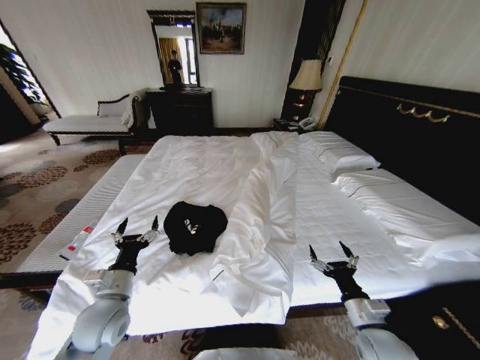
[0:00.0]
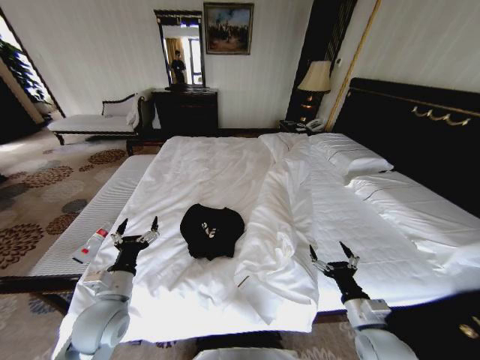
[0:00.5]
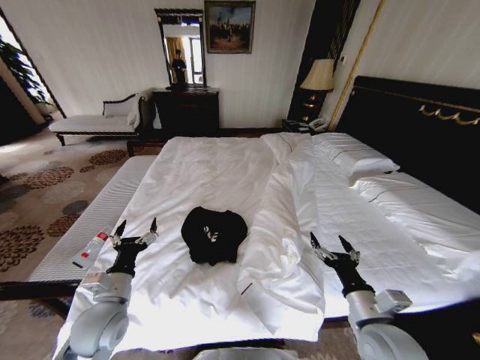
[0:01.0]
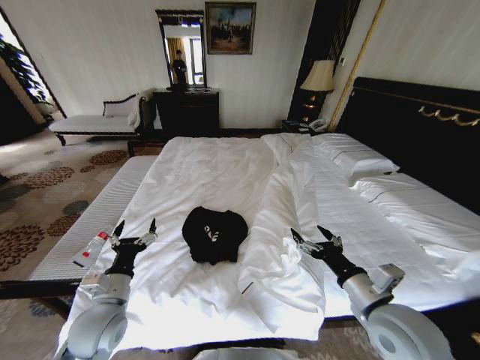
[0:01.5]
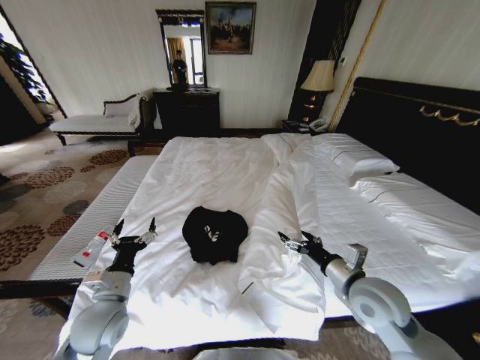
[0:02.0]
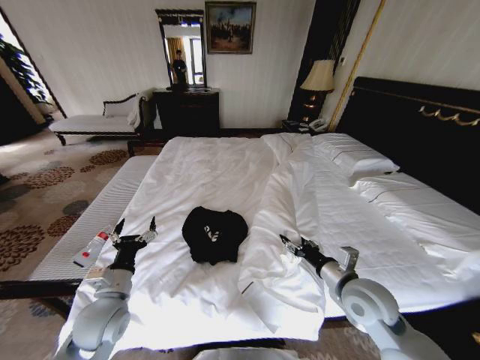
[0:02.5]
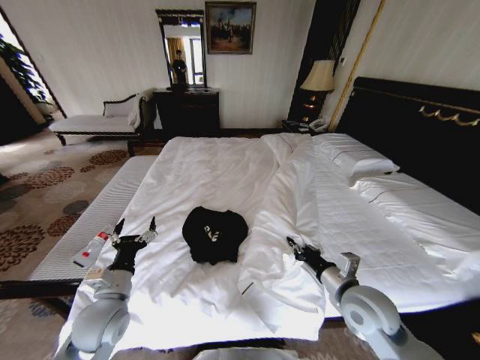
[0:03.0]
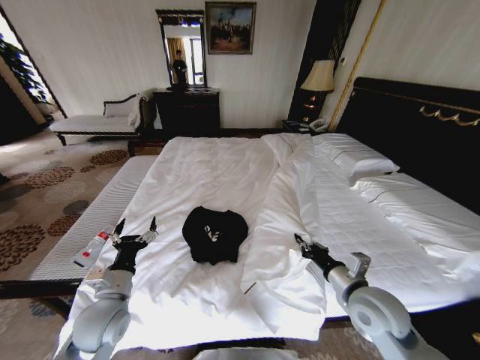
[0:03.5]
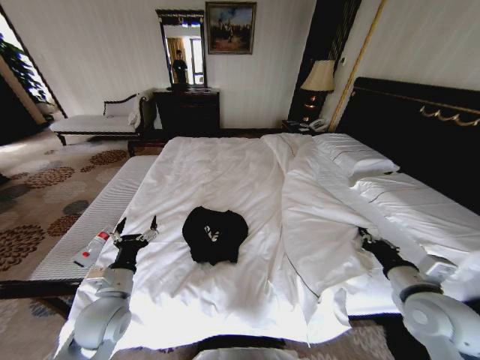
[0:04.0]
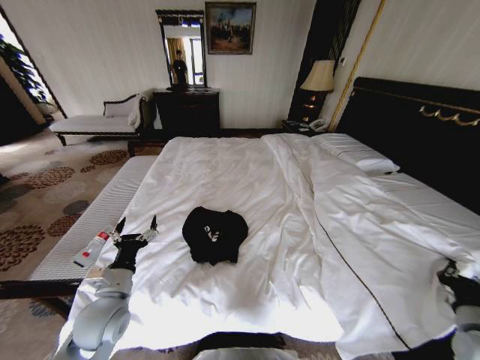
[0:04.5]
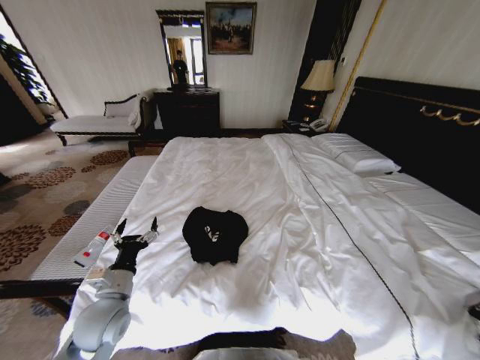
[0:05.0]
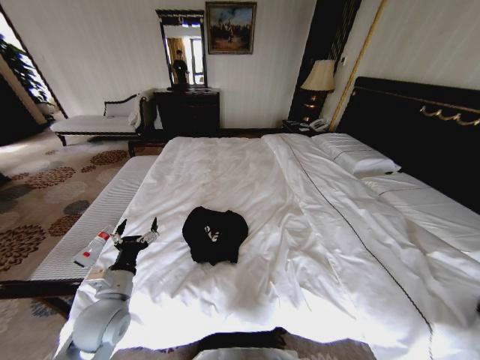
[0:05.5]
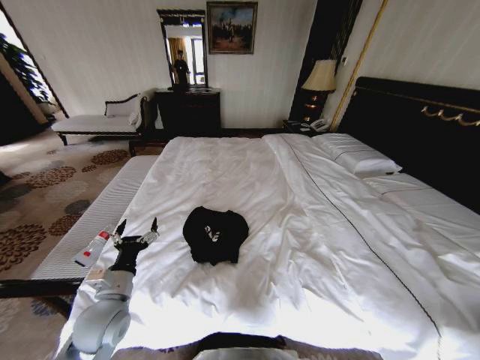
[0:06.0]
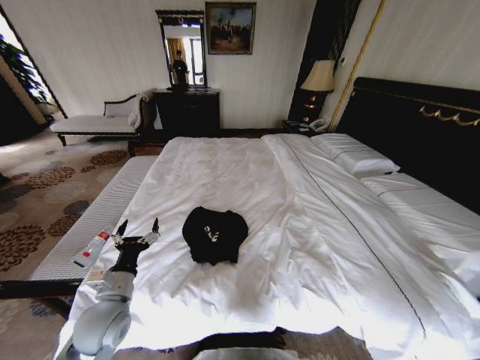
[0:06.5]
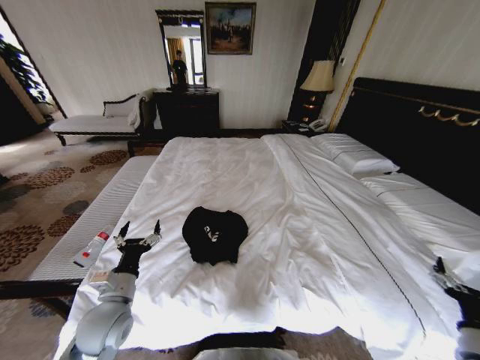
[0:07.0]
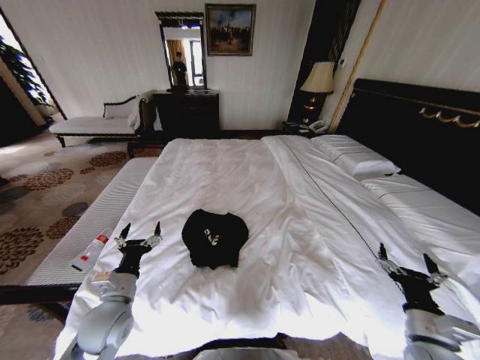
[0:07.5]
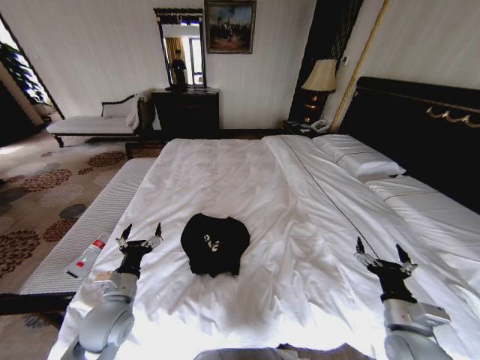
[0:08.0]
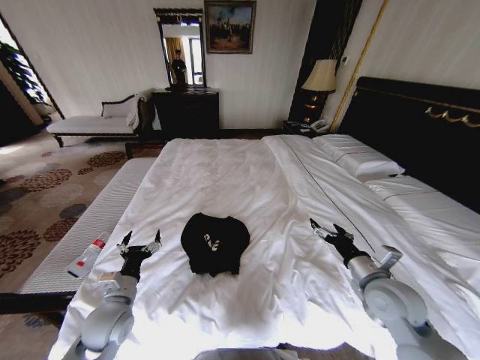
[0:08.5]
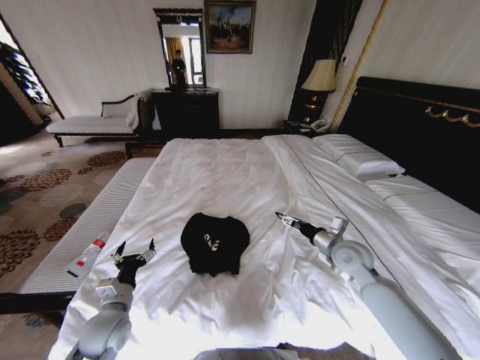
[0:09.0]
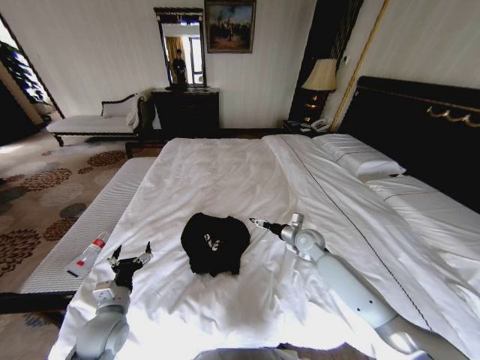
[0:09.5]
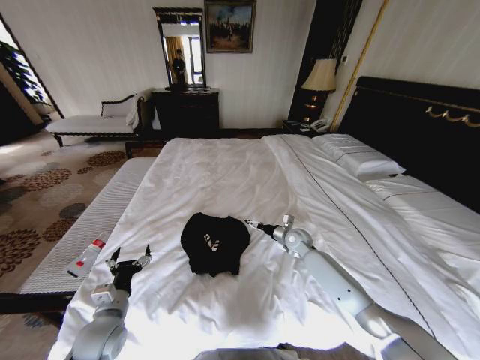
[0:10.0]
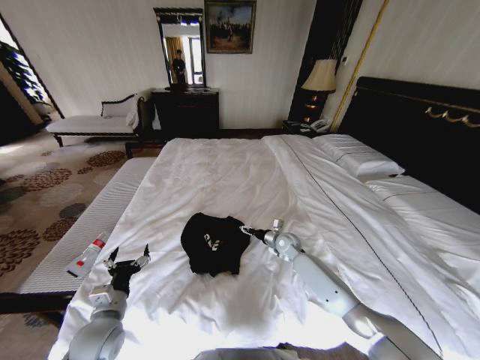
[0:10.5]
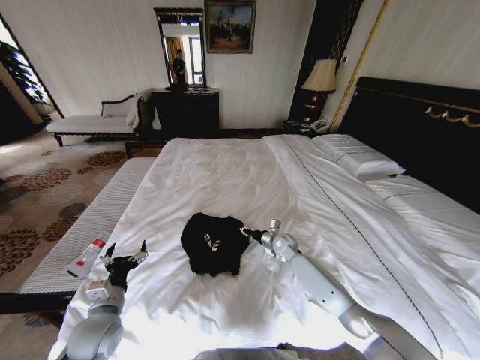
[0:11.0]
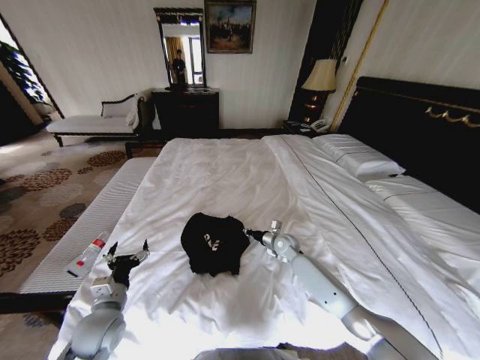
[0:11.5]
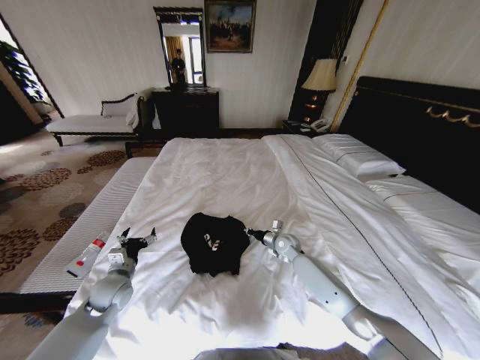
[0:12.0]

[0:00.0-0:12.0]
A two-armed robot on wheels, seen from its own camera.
Task of the whole recording: Fold the clothes on the bed.
0:00.0 to 0:02.0: The right gripper shifts some 15 cm upward and forward.
0:02.0 to 0:04.0: The right gripper goes some 10 cm to the right, and closes up.
0:04.0 to 0:06.0: The right gripper goes about 30 cm to the right and downward.
0:06.0 to 0:08.0: The right gripper moves to the left, roughly 30 cm, and opens.
0:08.0 to 0:10.0: The left gripper ends up some 5 cm from where it was. Meanwhile the right gripper travels forward by roughly 30 cm.
0:10.0 to 0:12.0: The left gripper travels forward by some 10 cm. The right gripper closes its fingers.

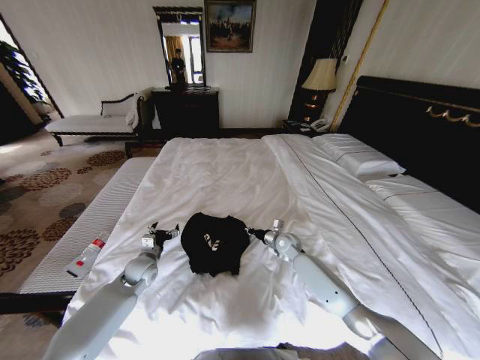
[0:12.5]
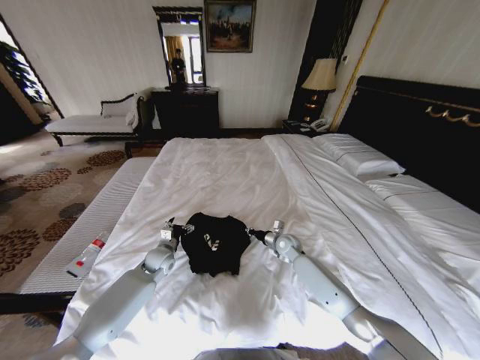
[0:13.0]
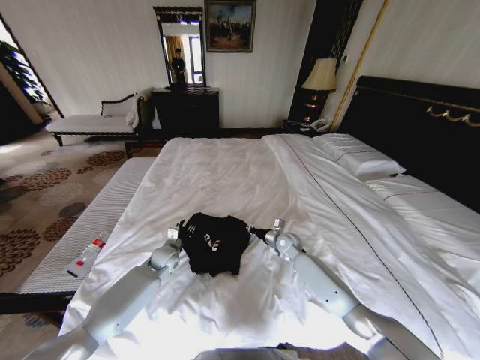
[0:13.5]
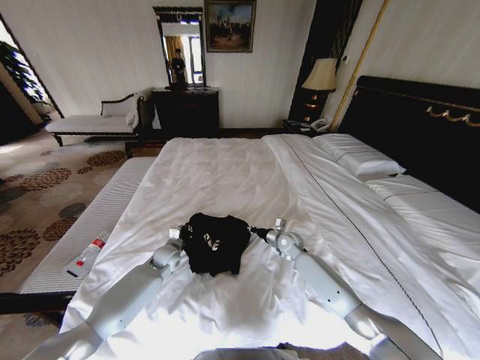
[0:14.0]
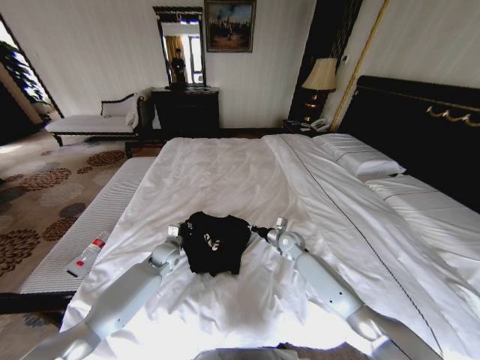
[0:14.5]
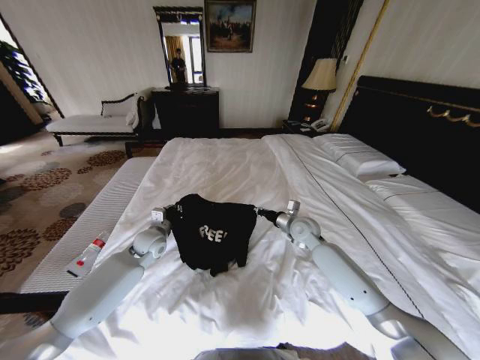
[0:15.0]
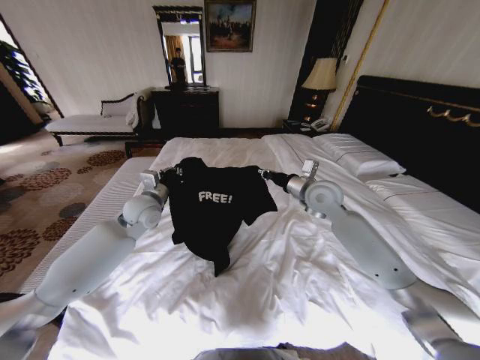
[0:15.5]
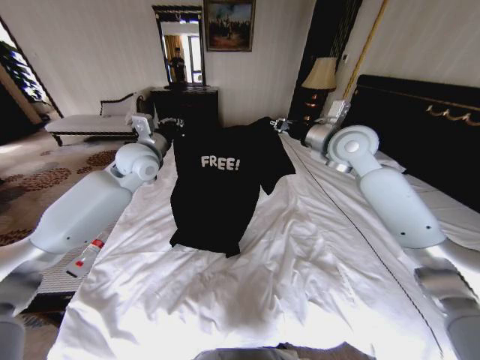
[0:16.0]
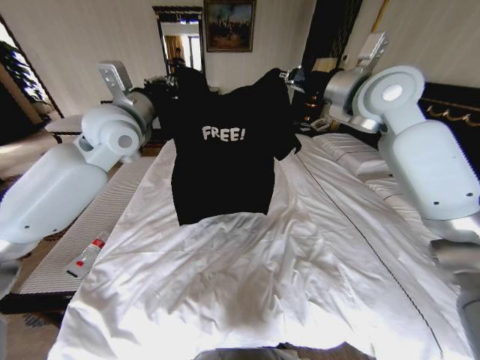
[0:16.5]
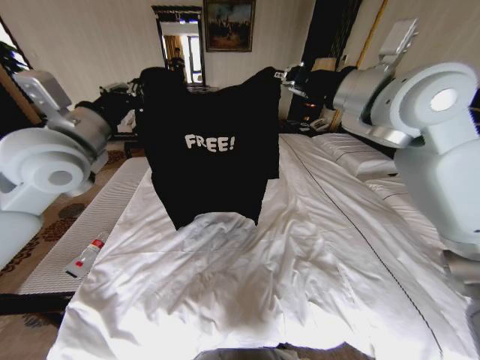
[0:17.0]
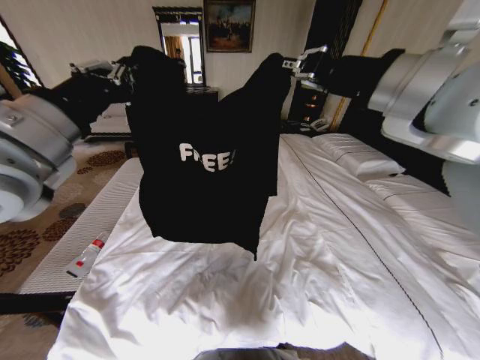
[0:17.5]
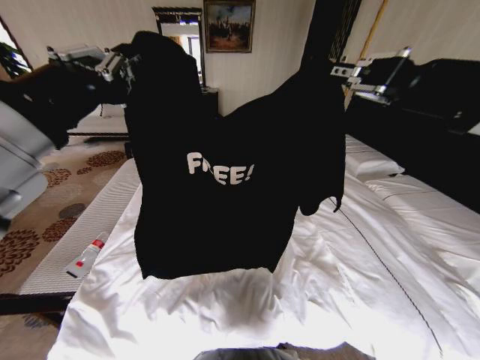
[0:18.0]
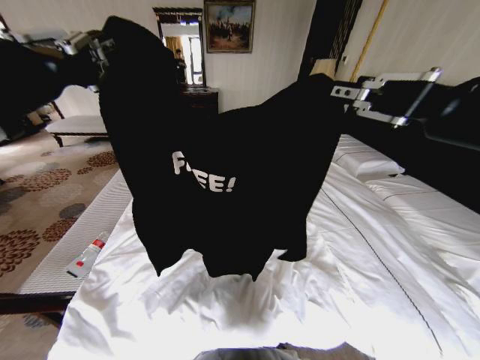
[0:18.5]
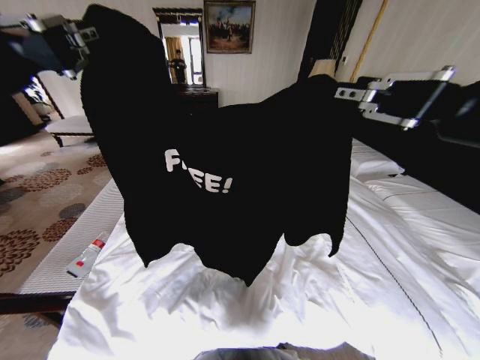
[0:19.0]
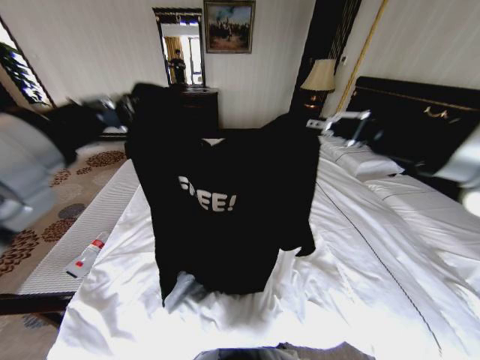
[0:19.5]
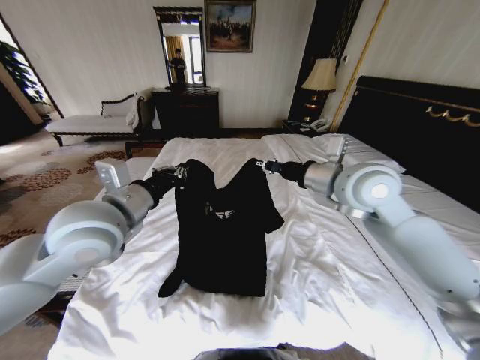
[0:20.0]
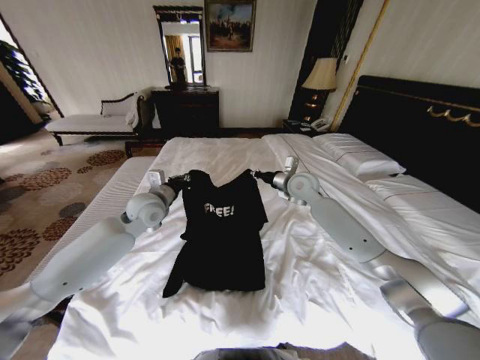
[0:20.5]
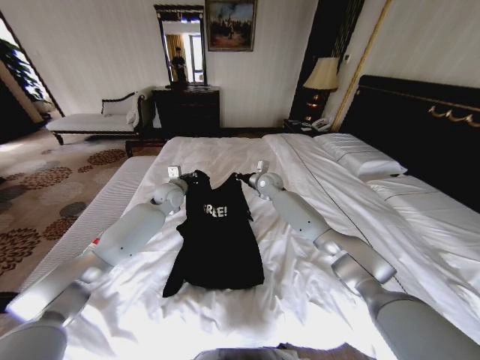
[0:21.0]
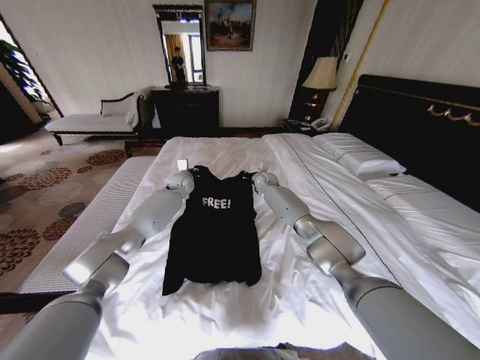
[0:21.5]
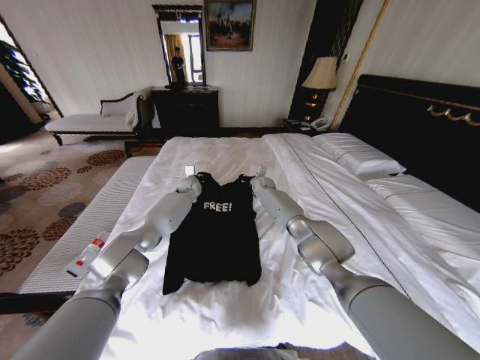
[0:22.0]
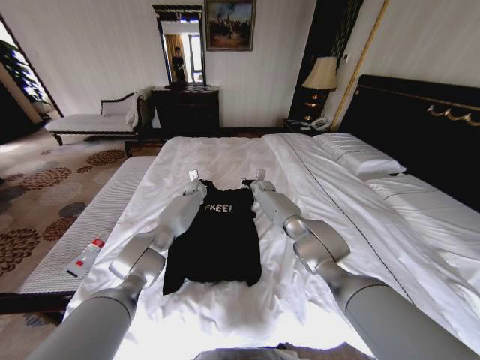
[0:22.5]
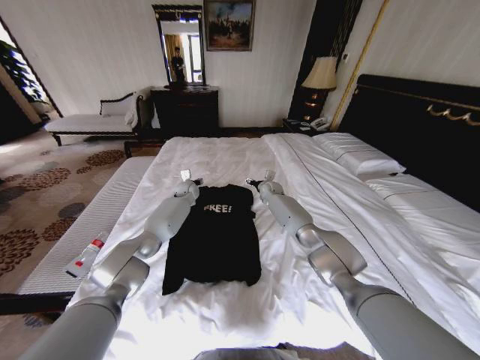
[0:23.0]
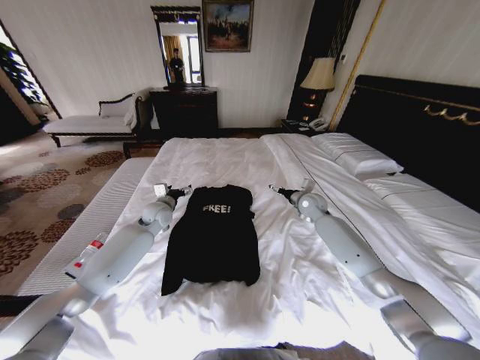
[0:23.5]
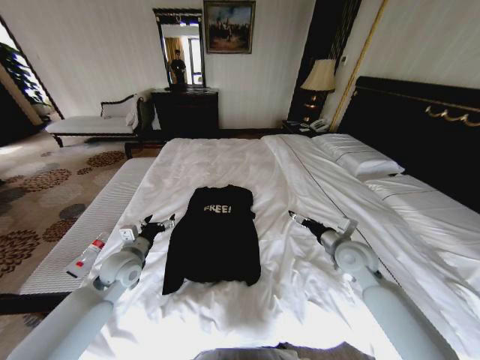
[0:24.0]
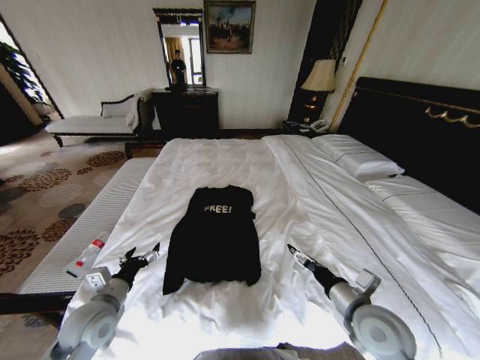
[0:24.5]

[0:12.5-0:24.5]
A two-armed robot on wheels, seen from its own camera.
Task of the whole recording: Fold the clothes on the bed.
0:12.5 to 0:14.5: The left gripper heads to the right and forward, covering about 10 cm, and closes its fingers.
0:14.5 to 0:16.5: The two grippers go approximately 50 cm upward.
0:16.5 to 0:18.5: The grippers both shift backward by approximately 30 cm.
0:18.5 to 0:20.5: The left gripper goes about 35 cm downward and forward. The right gripper moves forward and downward, approximately 50 cm.
0:20.5 to 0:22.5: The left gripper moves forward and downward, about 25 cm. Meanwhile the right gripper is displaced forward, downward and to the left by some 25 cm.
0:22.5 to 0:24.5: Both grippers travel together backward, some 50 cm. The right gripper opens its fingers; the left gripper opens its fingers.

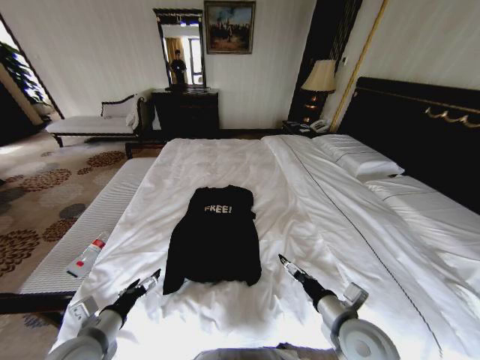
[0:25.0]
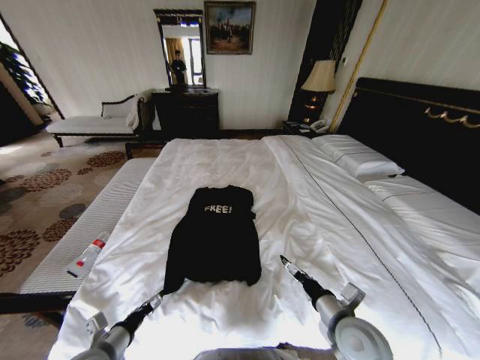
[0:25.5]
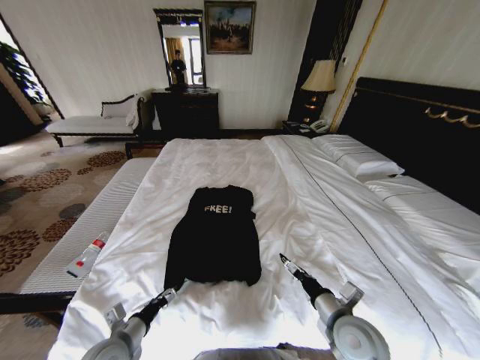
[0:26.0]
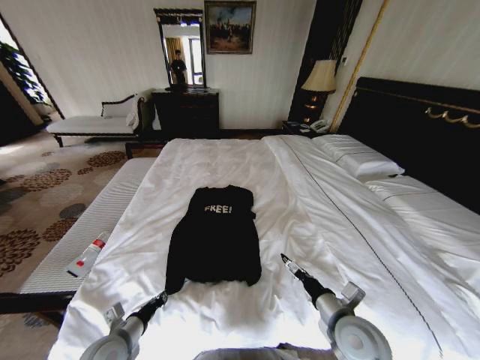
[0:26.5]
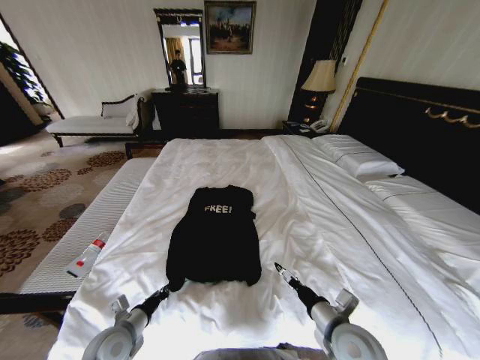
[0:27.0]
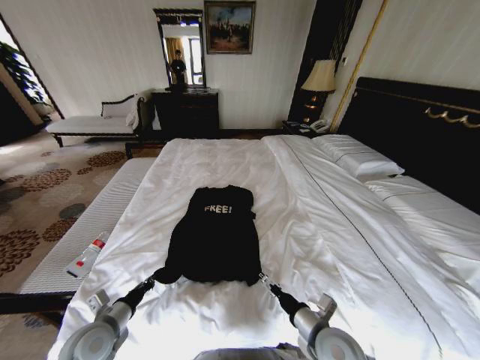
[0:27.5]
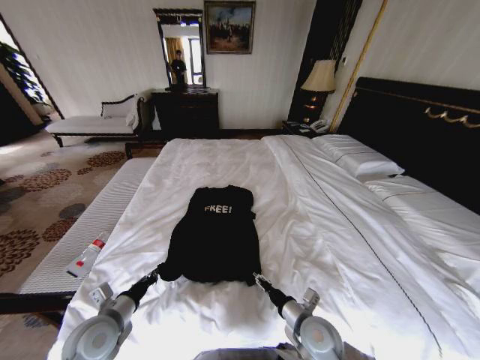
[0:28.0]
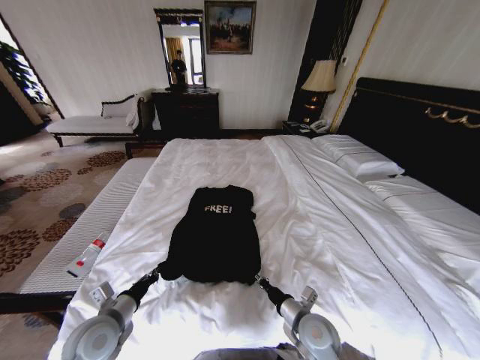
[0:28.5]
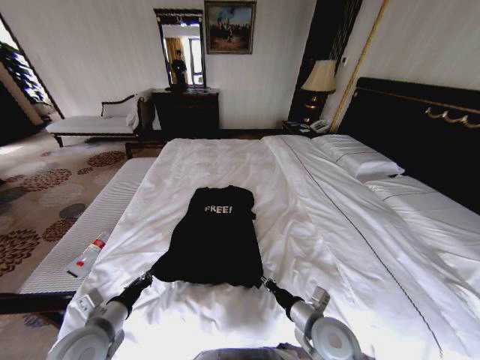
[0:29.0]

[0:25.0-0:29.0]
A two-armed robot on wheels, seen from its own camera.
Task of the whole recording: Fold the clothes on the bed.
0:25.0 to 0:27.0: The left gripper moves downward, some 10 cm, and closes.
0:27.0 to 0:29.0: The right gripper closes its fingers, while the left gripper travels upward by some 10 cm.
